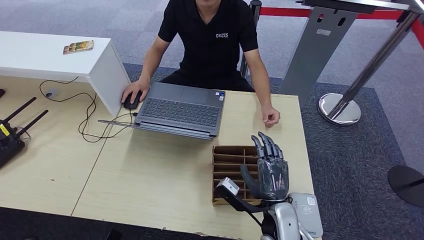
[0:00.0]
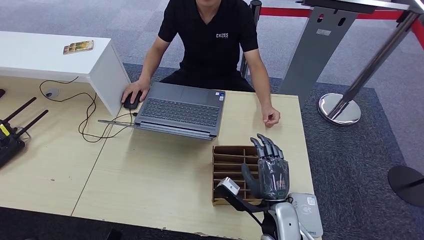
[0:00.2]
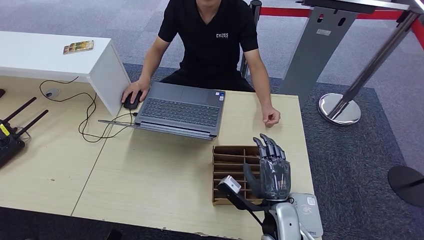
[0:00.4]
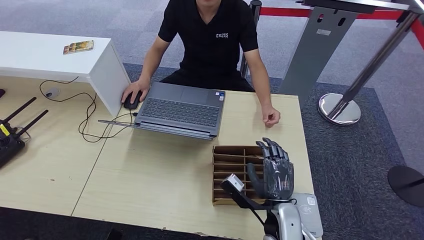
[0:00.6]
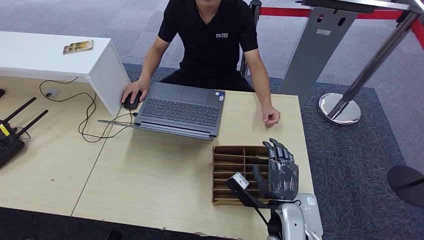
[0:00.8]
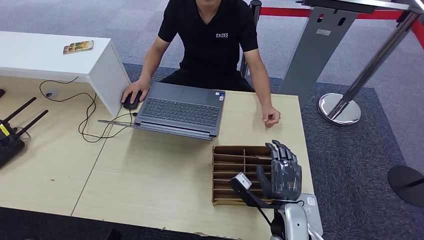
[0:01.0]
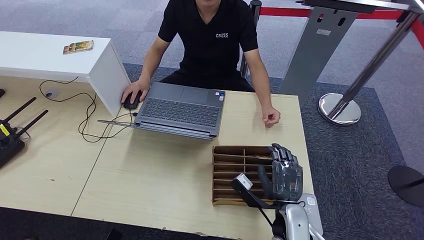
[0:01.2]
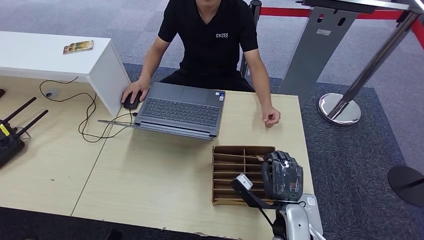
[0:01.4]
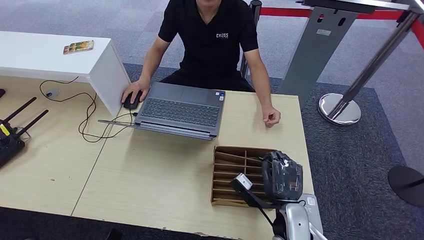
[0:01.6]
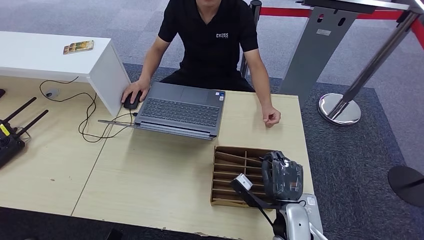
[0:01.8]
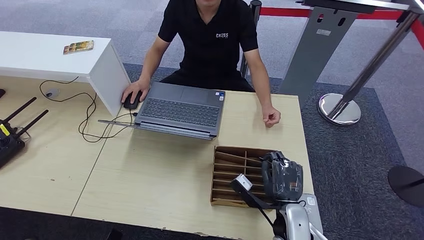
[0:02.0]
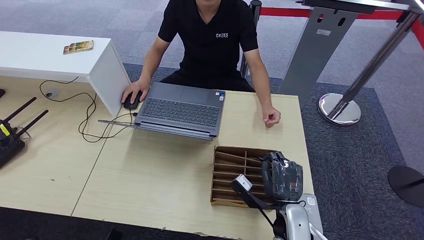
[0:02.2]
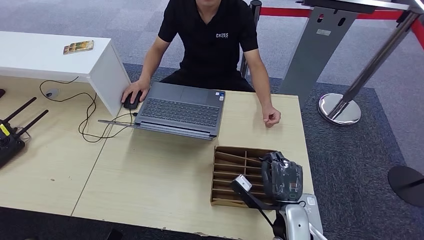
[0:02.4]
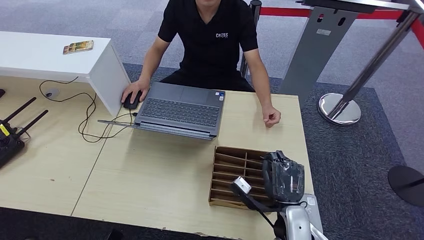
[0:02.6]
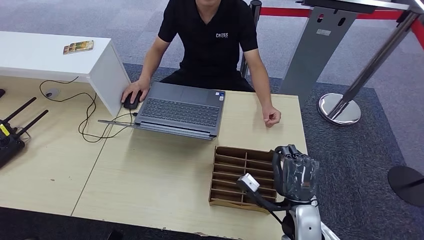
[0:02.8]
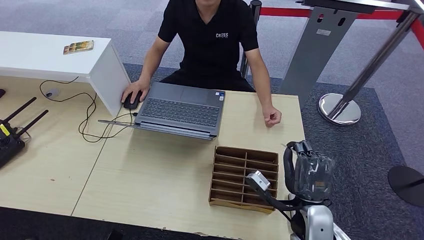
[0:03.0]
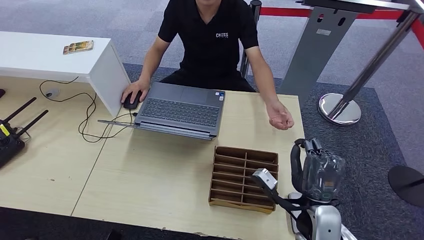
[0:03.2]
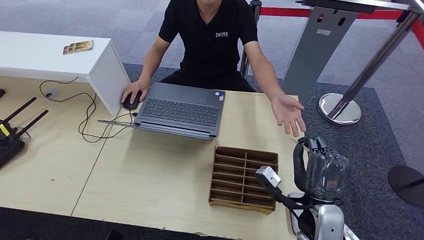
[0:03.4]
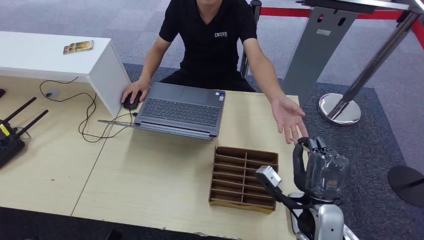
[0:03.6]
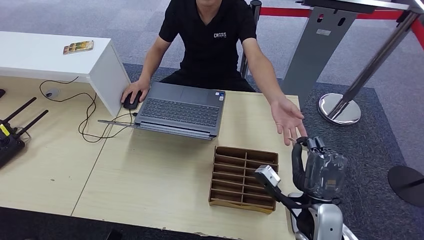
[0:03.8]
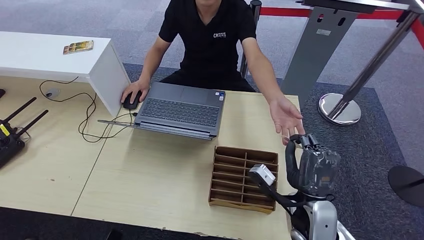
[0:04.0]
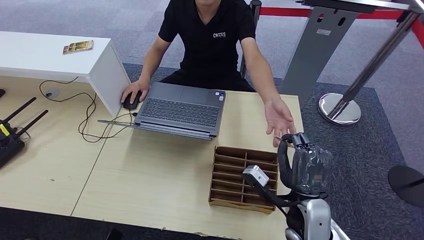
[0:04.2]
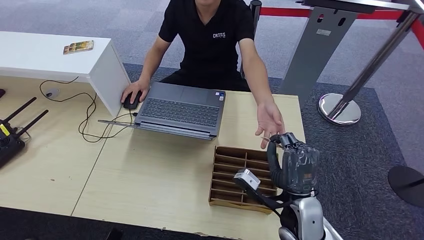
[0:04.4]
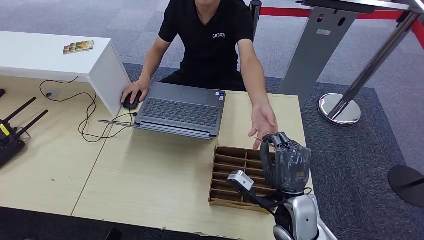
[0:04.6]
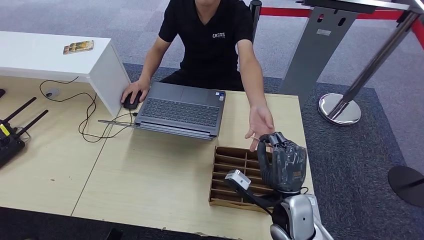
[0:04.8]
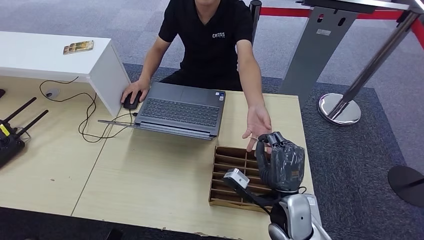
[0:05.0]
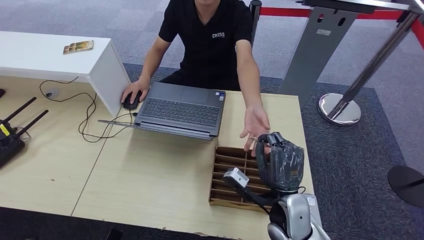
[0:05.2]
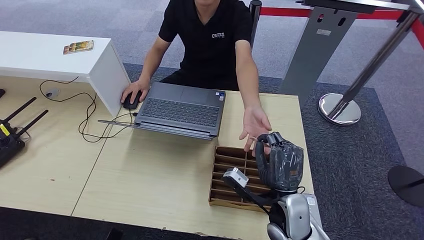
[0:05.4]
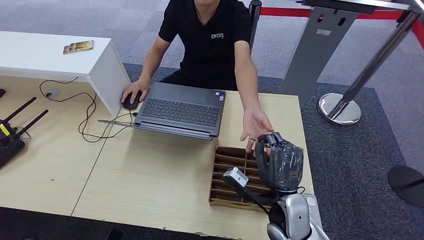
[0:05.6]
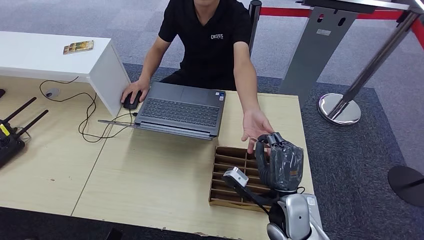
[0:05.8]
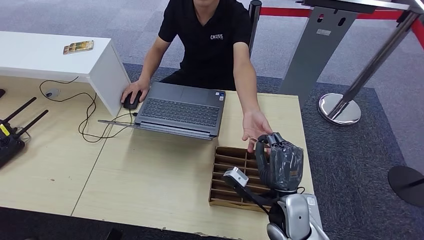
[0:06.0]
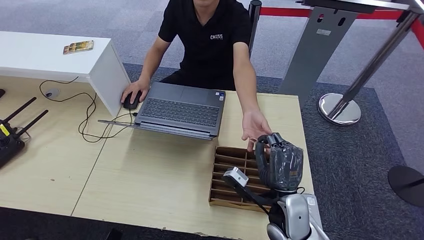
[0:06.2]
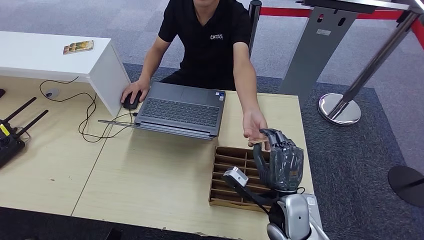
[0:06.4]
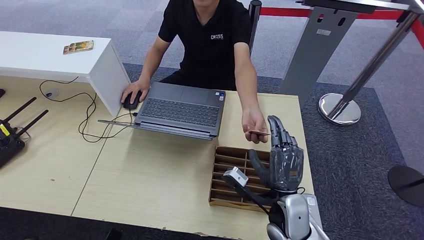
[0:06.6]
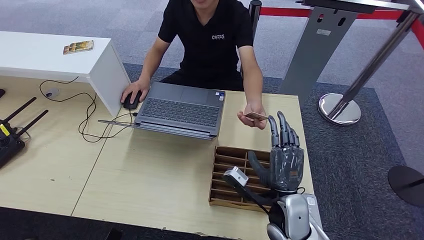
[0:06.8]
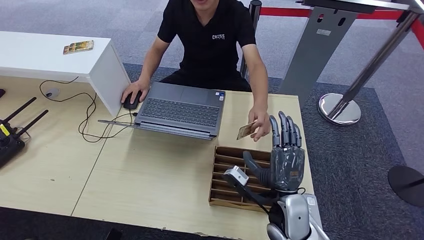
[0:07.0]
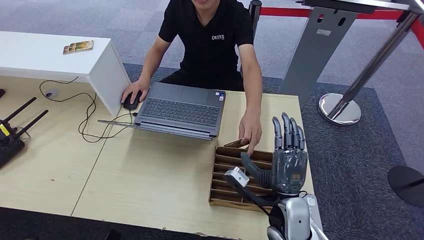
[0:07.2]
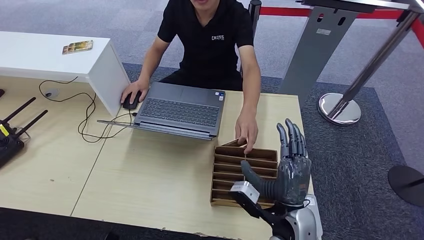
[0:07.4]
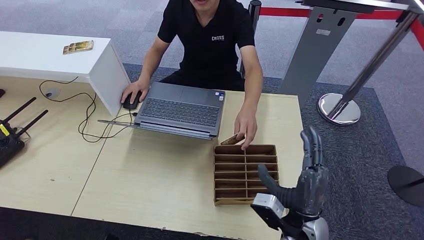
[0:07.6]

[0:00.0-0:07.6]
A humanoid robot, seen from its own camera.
Step, 0:00.0 to 0:03.8: Pick up the room key from the key card box.
Step, 0:04.0 to 0:07.6: Hand the room key to the person.
0:00.0 to 0:01.6: The hands make only small movements.
0:01.6 to 0:03.0: The right hand shifts by about 5 cm.
0:03.0 to 0:06.0: The hands move only a little.
0:06.0 to 0:07.6: The right hand ends up approximately 5 cm from where it was.
